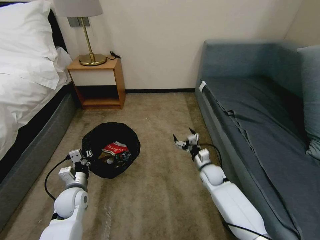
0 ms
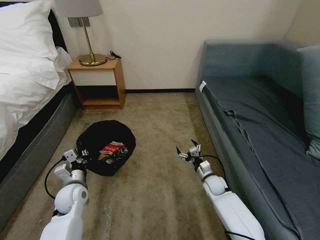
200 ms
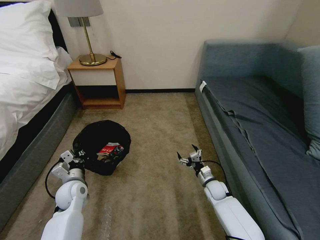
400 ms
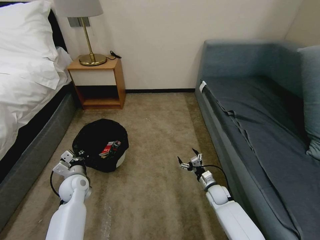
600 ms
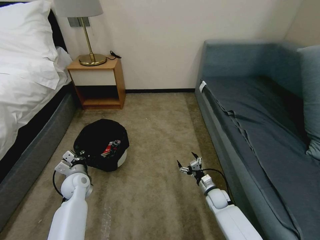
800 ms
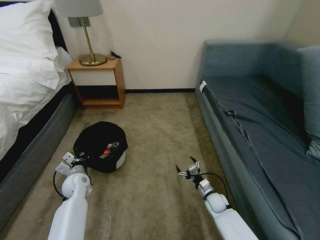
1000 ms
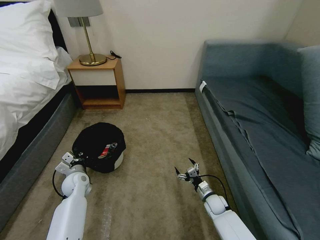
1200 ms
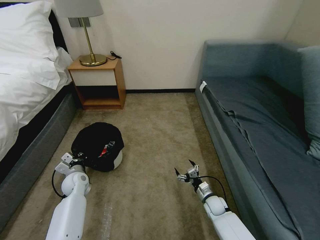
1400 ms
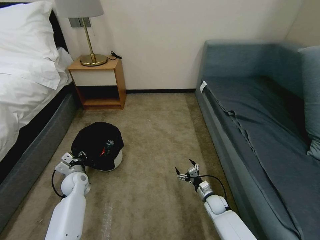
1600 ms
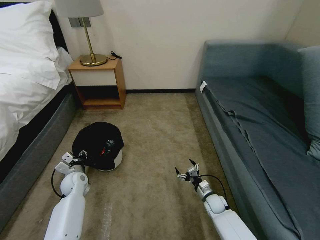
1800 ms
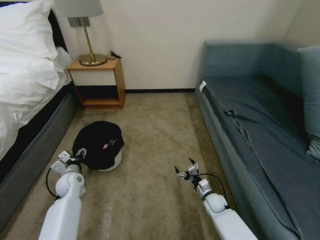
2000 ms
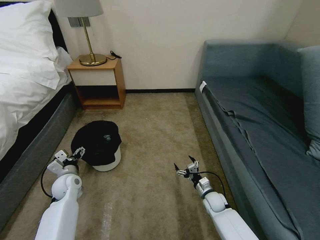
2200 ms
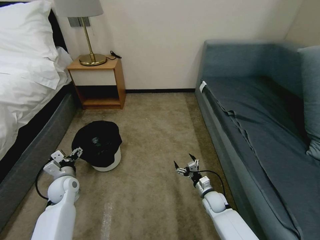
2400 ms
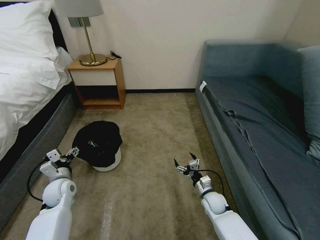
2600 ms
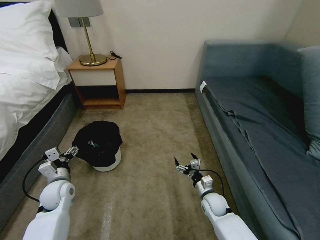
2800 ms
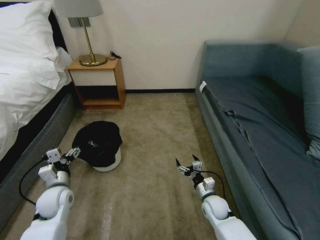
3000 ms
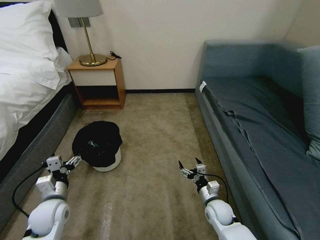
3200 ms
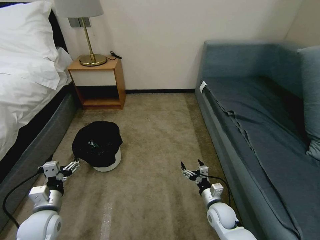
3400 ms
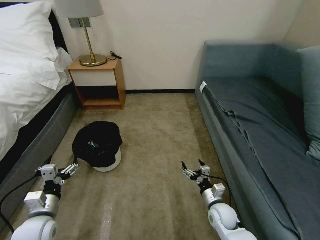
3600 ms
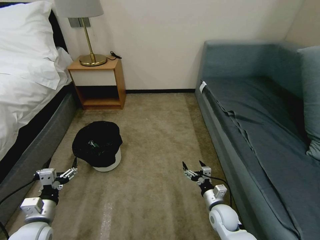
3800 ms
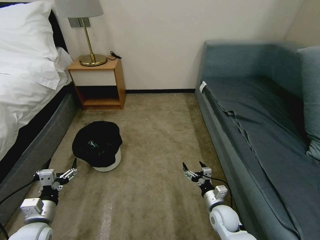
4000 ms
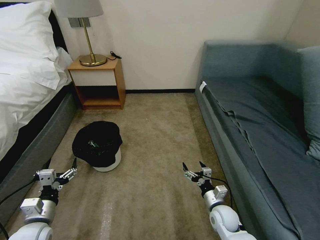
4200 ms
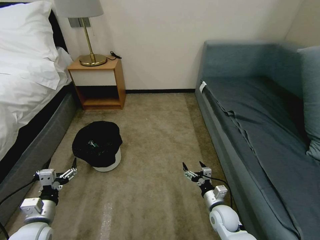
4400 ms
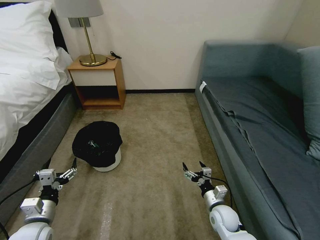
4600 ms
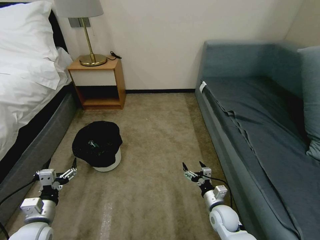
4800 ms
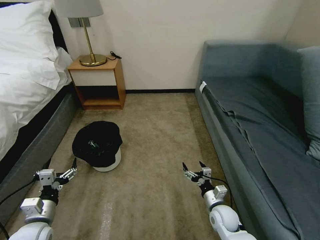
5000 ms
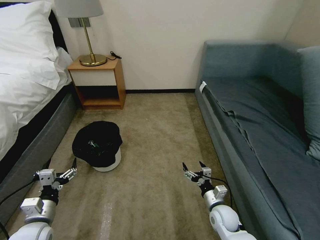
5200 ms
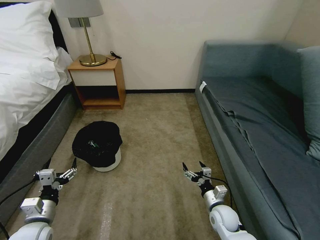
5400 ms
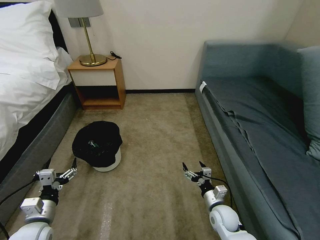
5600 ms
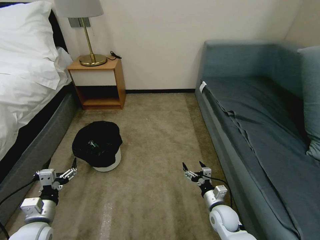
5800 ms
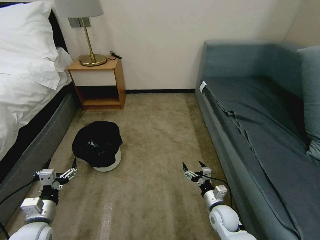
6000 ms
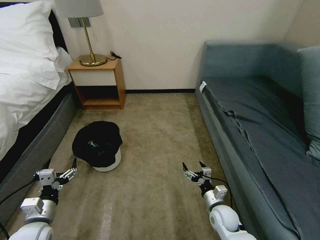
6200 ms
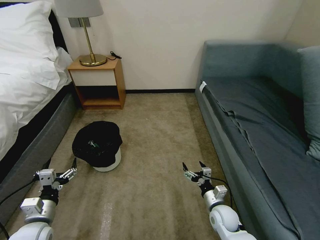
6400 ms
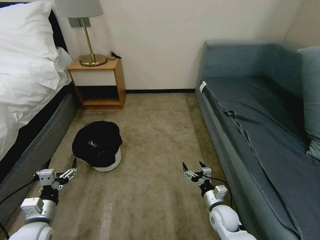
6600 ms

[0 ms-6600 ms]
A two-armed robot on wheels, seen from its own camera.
Task of the whole recording: Pick up the trash bin, then pick up the garbage on the floor and place it into the trash bin.
0 ms to 1600 ms: The left gripper moves forward, approximately 10 cm. Meanwhile the right gripper moves downward and backward, about 15 cm.
1600 ms to 3200 ms: The left gripper goes approximately 15 cm backward and upward, and opens its fingers. The right gripper heads upward, covering approximately 10 cm.
3200 ms to 5000 ms: The left gripper moves backward, some 5 cm.
5000 ms to 6600 ms: Both grippers stay put.

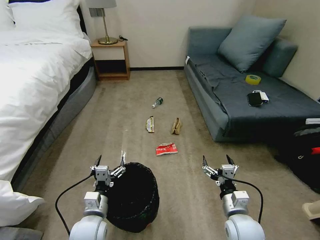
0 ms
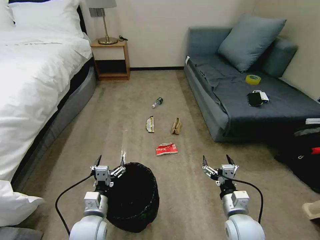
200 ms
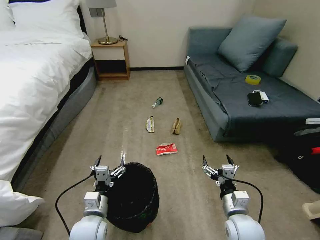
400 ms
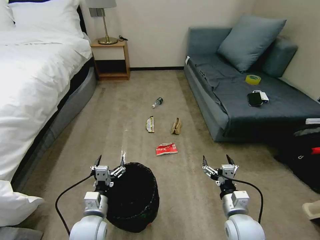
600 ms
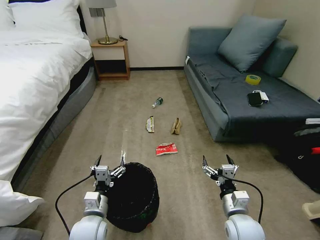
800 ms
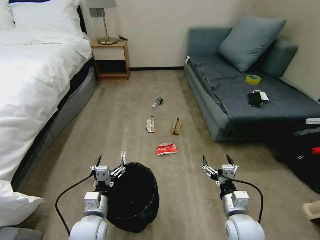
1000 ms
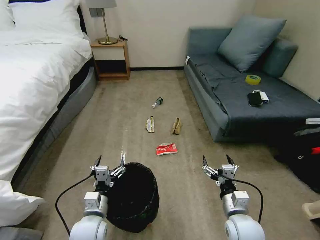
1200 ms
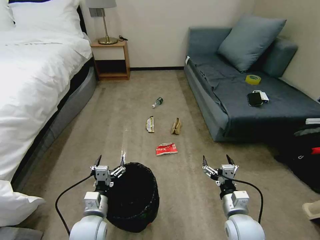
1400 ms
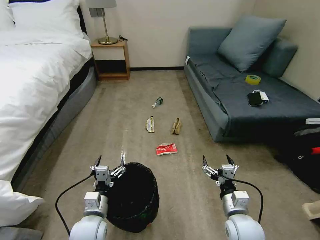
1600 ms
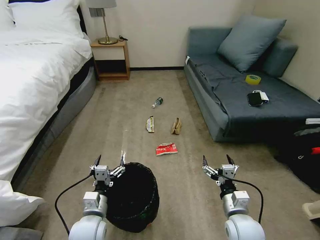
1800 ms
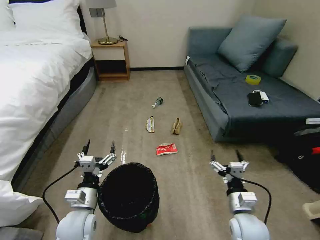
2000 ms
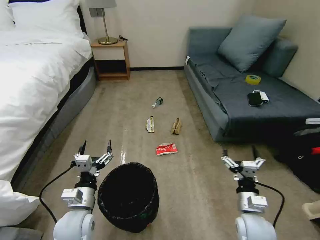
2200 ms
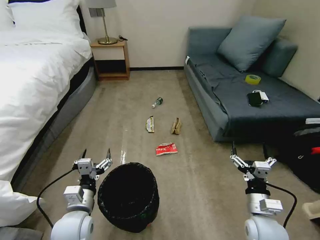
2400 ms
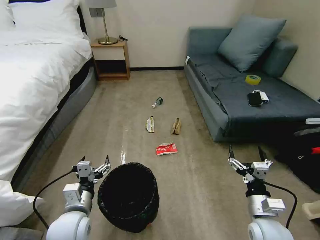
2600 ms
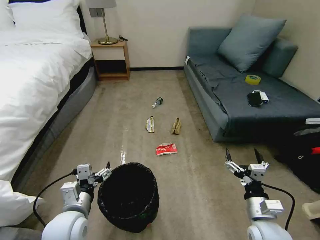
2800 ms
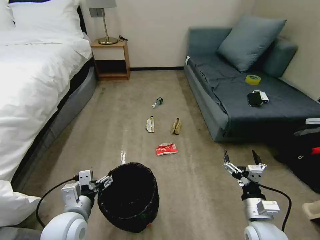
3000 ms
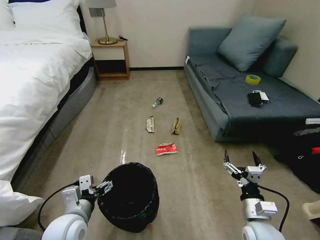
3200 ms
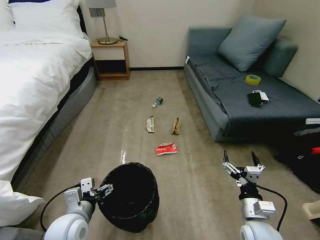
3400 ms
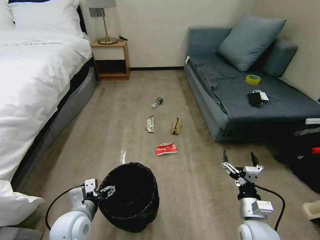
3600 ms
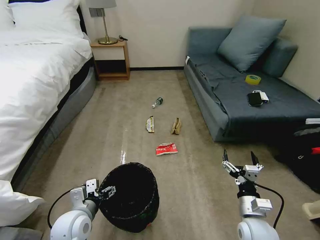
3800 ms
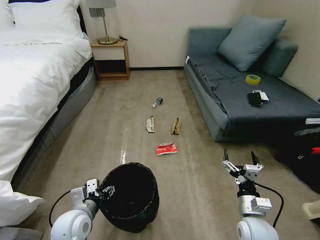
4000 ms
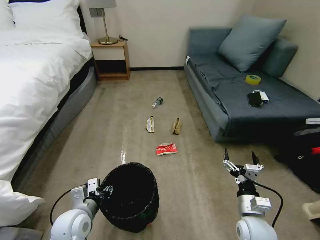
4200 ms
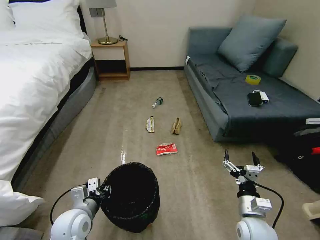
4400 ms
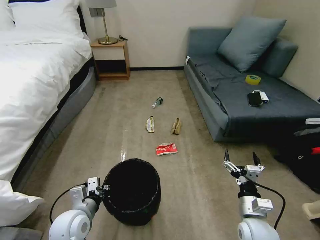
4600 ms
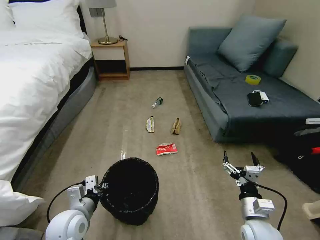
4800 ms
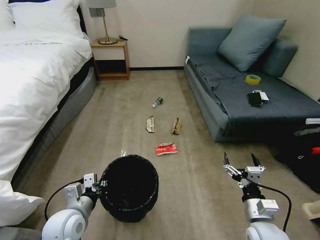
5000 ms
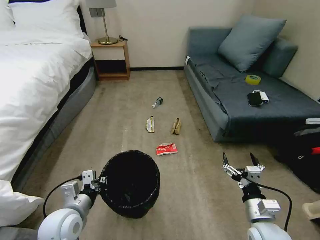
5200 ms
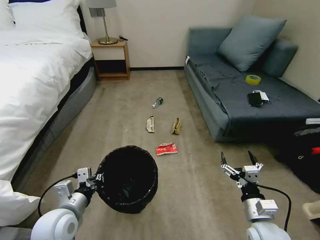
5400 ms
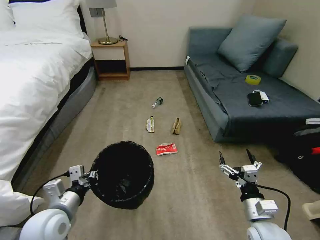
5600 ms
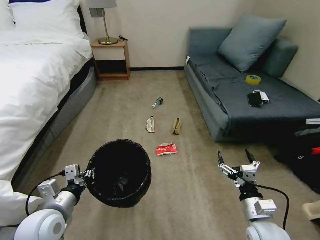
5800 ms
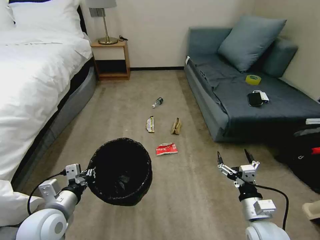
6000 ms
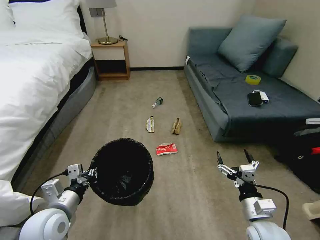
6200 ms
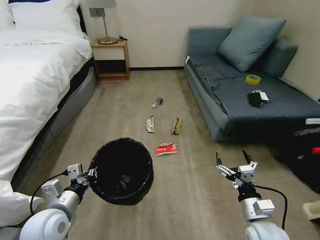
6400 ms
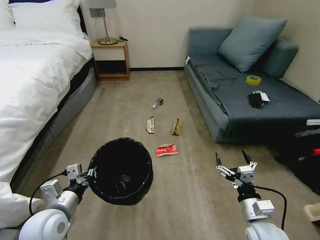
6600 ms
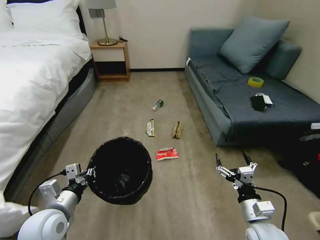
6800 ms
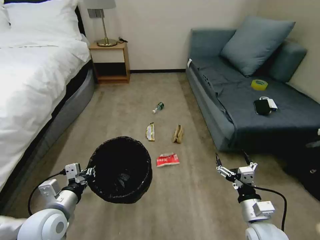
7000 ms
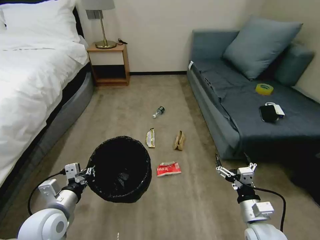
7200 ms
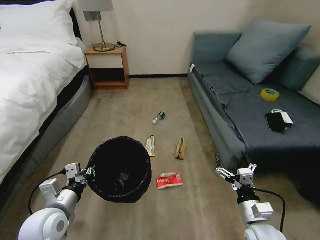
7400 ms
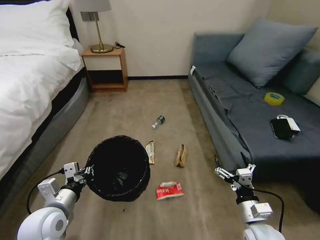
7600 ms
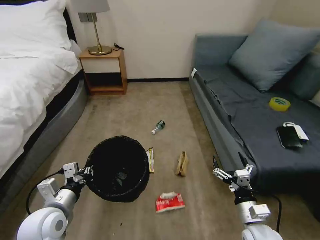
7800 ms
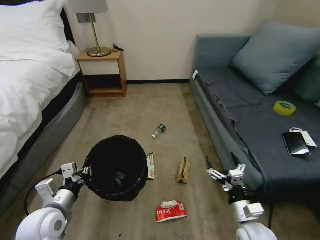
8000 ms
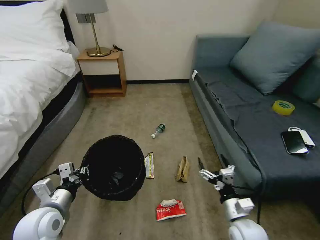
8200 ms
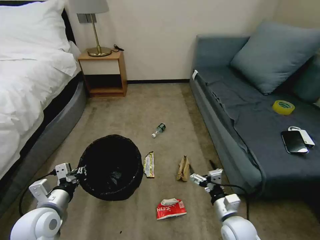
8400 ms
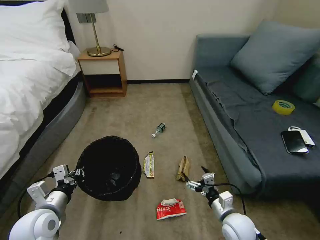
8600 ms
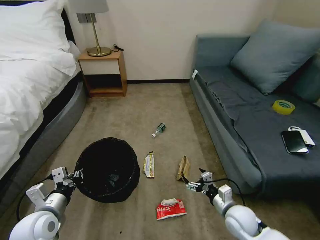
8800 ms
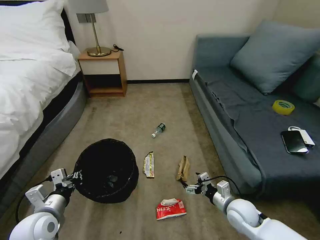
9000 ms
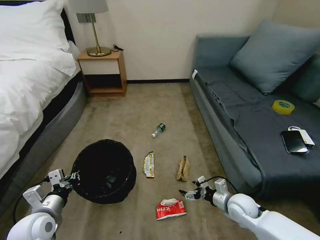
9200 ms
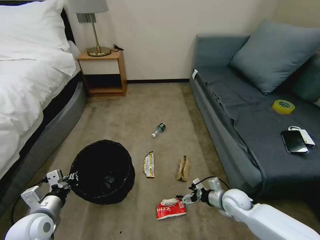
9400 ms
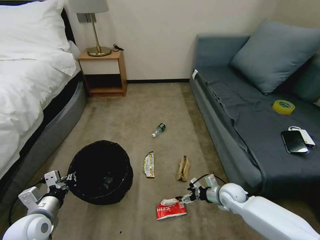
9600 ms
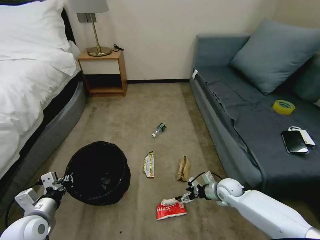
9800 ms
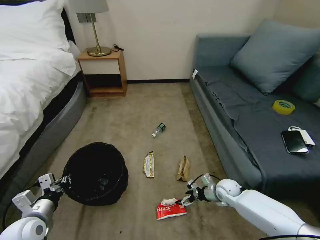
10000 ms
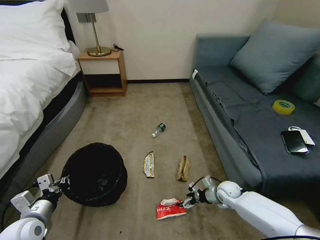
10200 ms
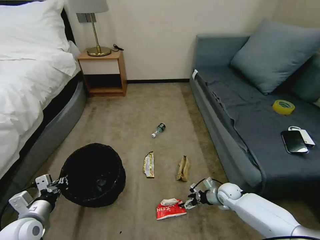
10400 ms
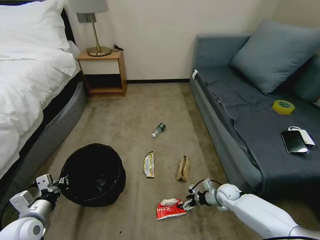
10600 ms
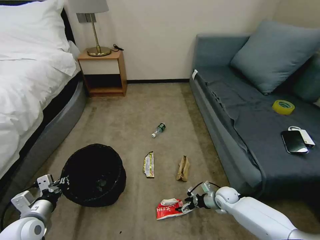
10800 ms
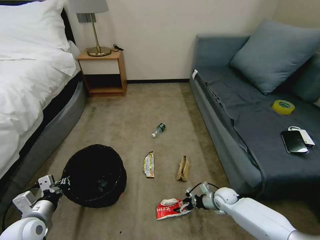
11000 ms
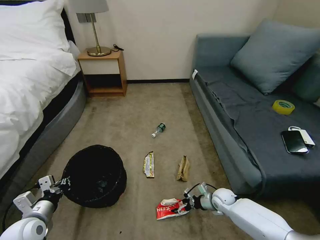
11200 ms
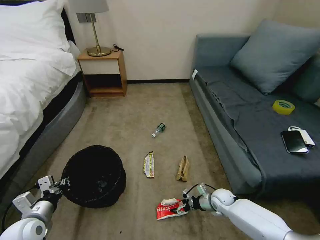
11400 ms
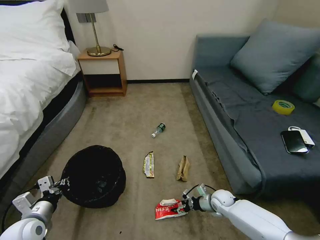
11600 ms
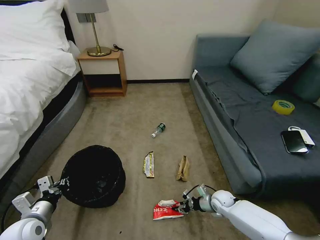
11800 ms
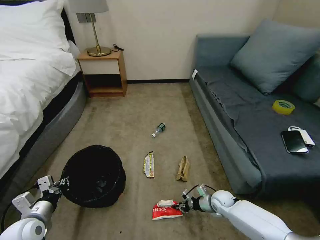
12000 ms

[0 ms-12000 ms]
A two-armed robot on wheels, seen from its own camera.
Task of the whole recording: Pick up the trash bin, then pick up the garbage on the floor and place it into the trash bin.
1600 ms to 3000 ms: The right gripper ends up roughly 5 cm from where it was, while the left gripper shifts about 10 cm upward.
3000 ms to 4400 ms: The left gripper shifts approximately 5 cm downward, and closes up.
4400 ms to 6000 ms: The left gripper is displaced upward by approximately 5 cm.
7600 ms to 9000 ms: The right gripper heads forward, covering approximately 10 cm.
9000 ms to 10400 ms: The right gripper heads forward and downward, covering approximately 15 cm. Meanwhile the left gripper travels to the left by about 5 cm.
10400 ms to 12000 ms: The right gripper closes up.

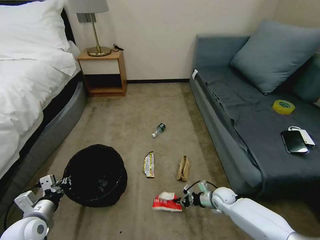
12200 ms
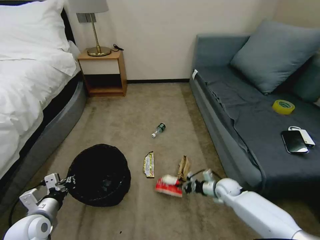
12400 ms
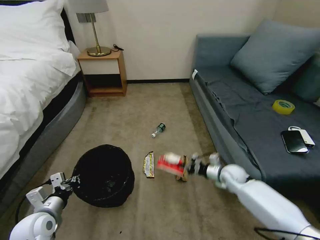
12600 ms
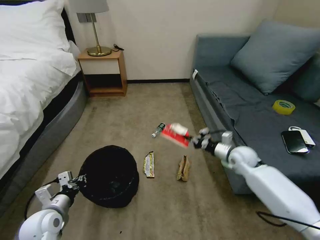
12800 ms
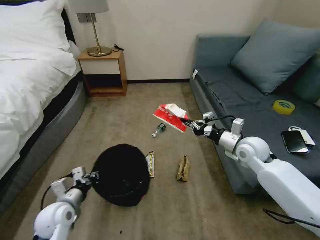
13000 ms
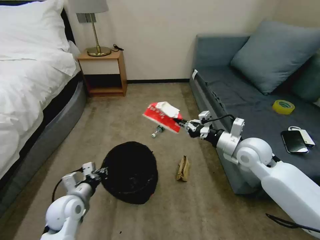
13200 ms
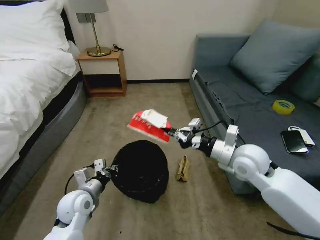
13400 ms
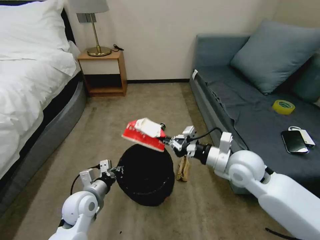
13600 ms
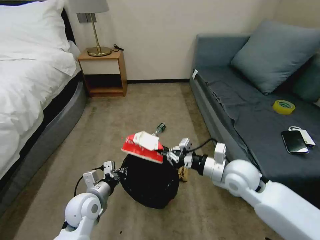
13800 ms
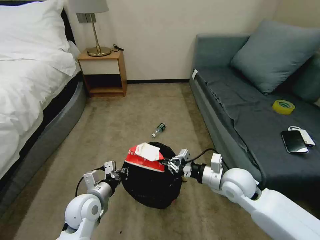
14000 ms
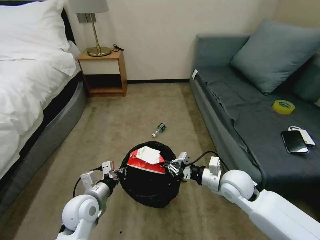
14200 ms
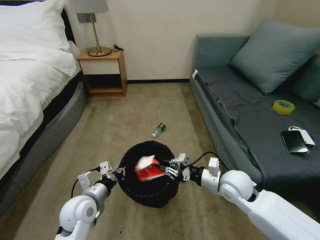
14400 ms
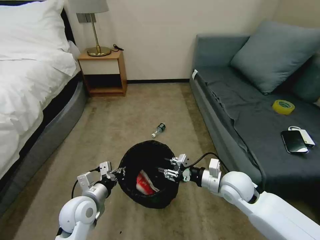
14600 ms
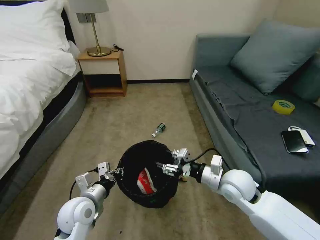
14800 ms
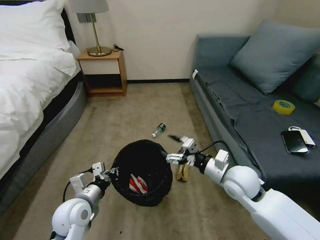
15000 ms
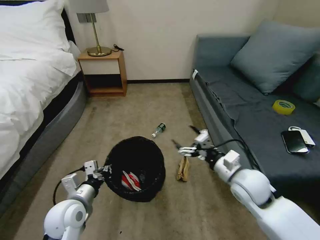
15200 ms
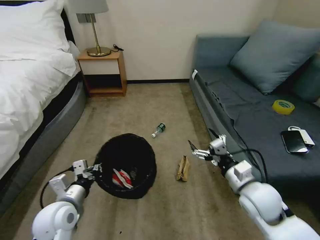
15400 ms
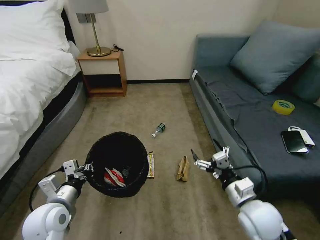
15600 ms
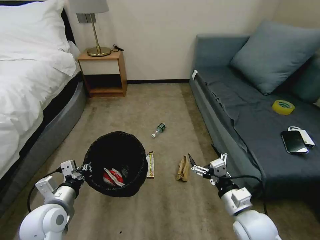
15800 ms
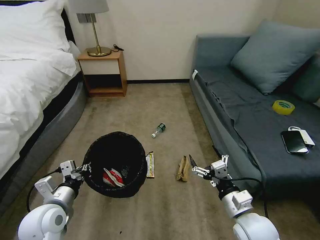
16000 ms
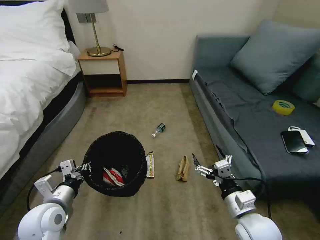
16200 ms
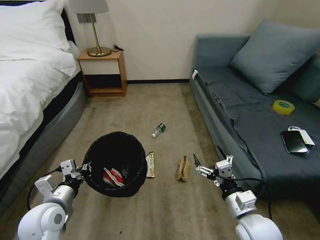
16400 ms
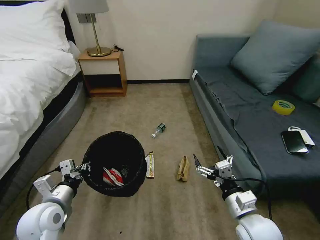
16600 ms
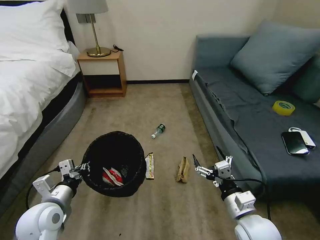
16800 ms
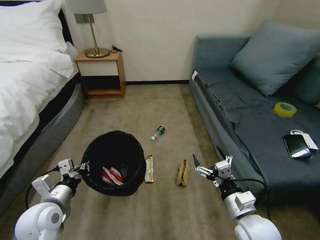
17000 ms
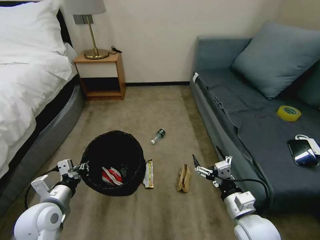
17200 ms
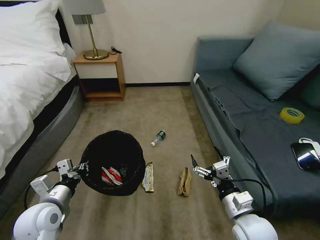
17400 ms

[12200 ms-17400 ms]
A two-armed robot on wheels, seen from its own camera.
Task of the whole recording: Pick up the trash bin, then pick up the garbage on the floor and place it into the trash bin.
12200 ms to 14000 ms: The left gripper shifts some 15 cm to the right and forward. The right gripper shifts roughly 25 cm upward.
14000 ms to 15600 ms: The right gripper shifts some 10 cm backward, and opens, while the left gripper shifts roughly 5 cm to the left.
15600 ms to 17400 ms: The right gripper ends up approximately 5 cm from where it was.
